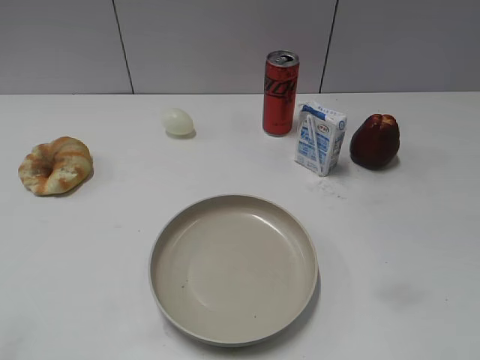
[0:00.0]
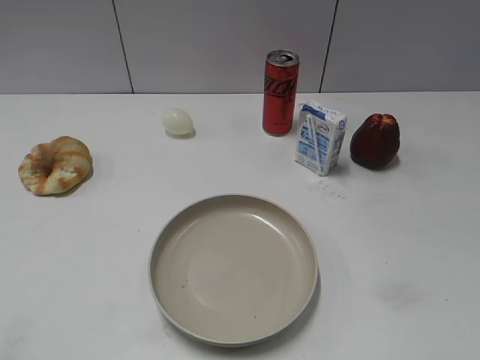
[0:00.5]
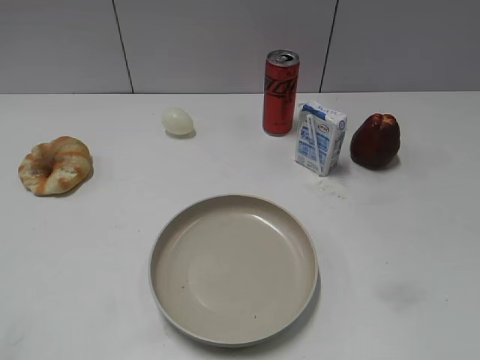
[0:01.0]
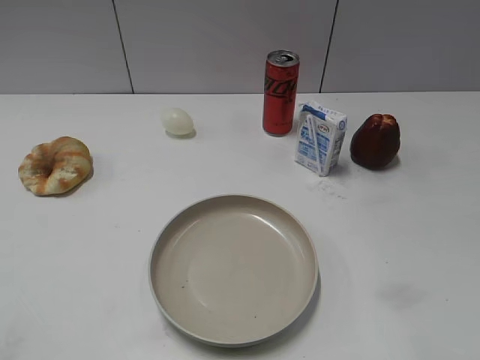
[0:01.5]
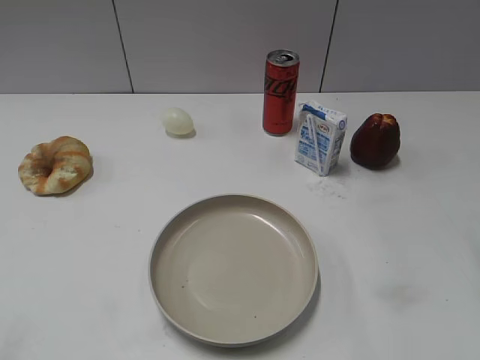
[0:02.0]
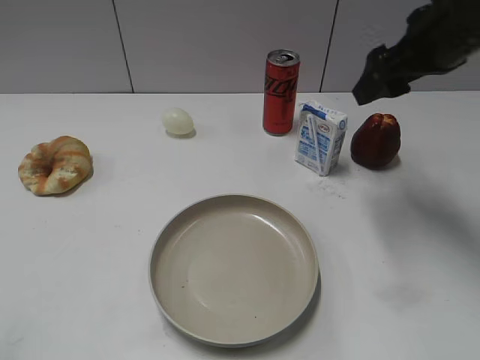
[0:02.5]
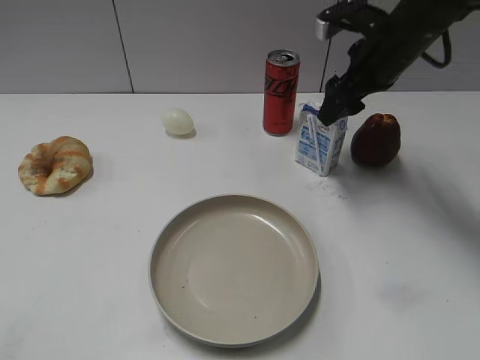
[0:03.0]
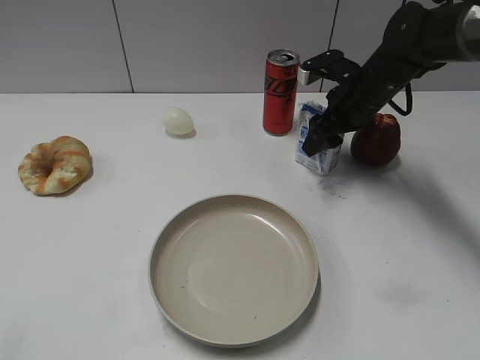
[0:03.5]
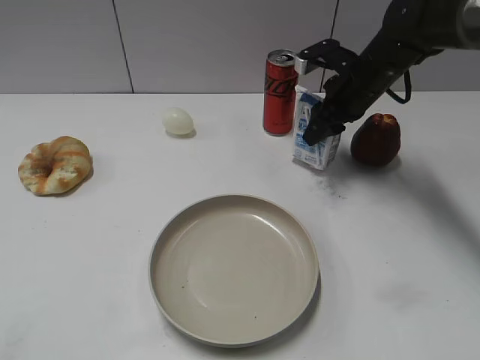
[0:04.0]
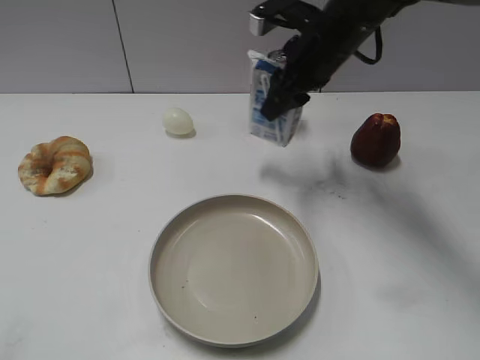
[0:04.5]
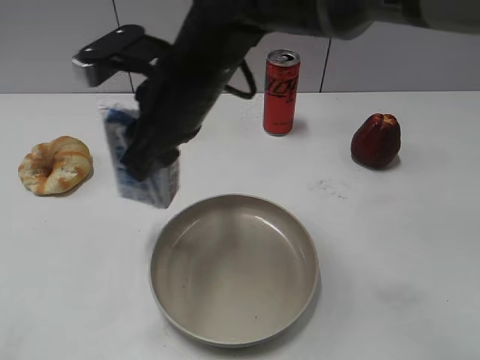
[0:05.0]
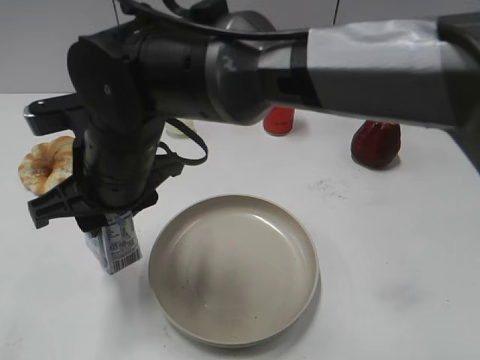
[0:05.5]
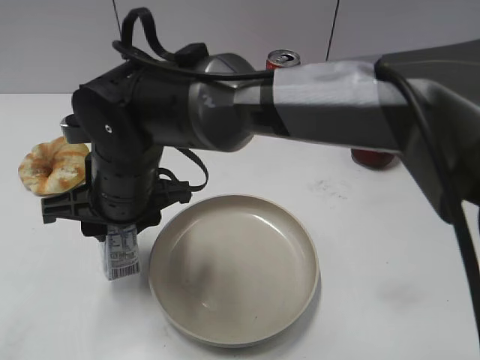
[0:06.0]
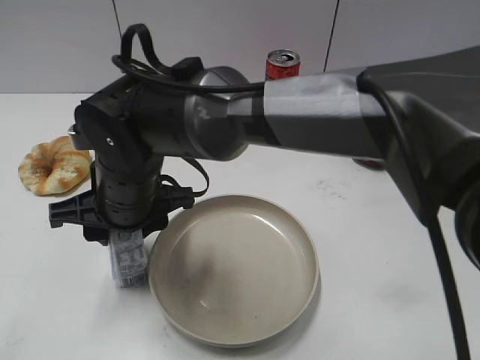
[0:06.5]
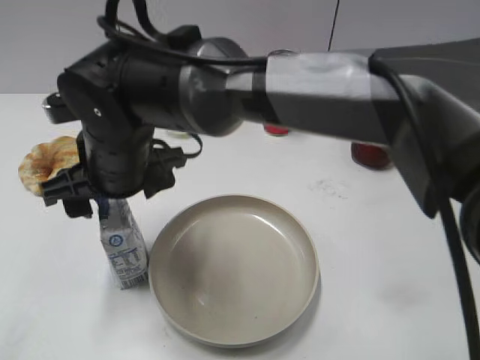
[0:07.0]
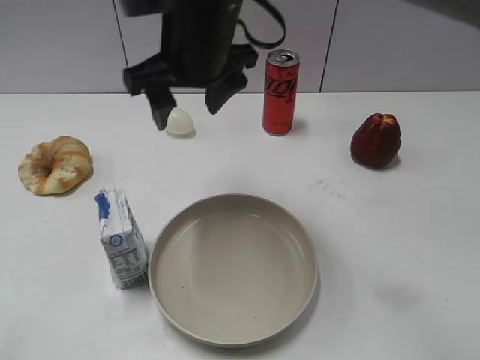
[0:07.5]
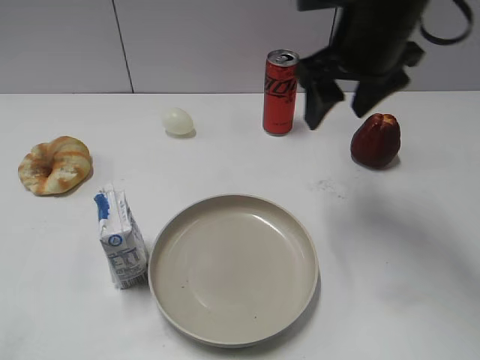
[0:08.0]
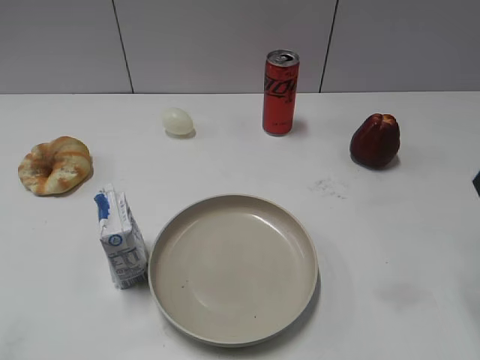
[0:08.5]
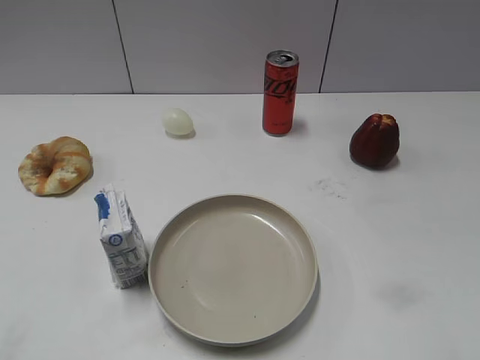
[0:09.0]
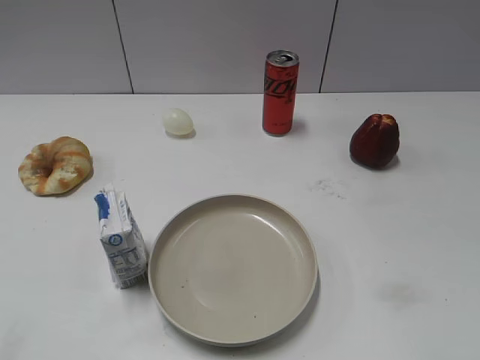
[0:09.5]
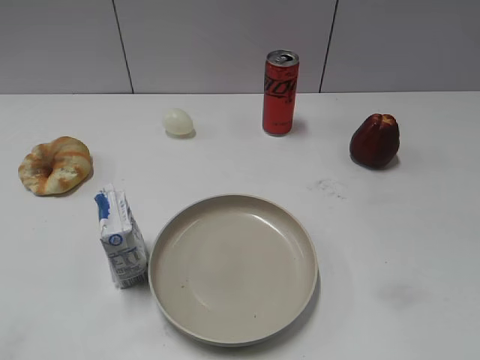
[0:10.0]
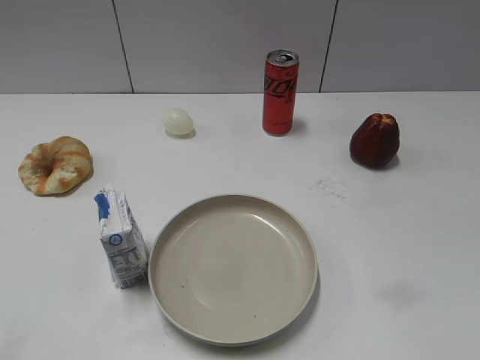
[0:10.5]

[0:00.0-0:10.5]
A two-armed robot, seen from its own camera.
Step, 0:01.0 to 0:03.5: Grasp the milk with right gripper.
Step, 0:04.0 to 0:06.5: Place the milk on the table with right gripper.
0:02.0 to 0:04.0: The right gripper shifts approximately 30 cm forward, downward and to the left, and closes.
0:04.0 to 0:06.5: The right gripper travels to the left and backward by some 35 cm.
0:06.5 to 0:08.5: The right gripper shifts some 40 cm to the right, and opens its fingers.

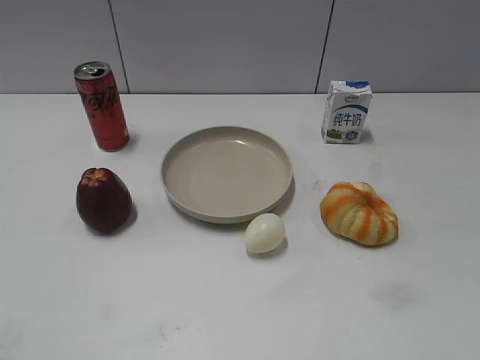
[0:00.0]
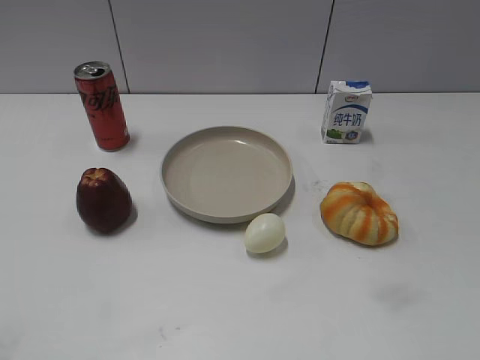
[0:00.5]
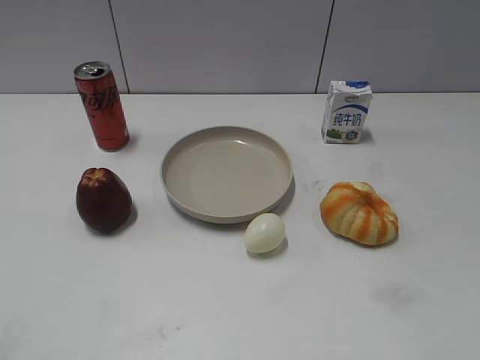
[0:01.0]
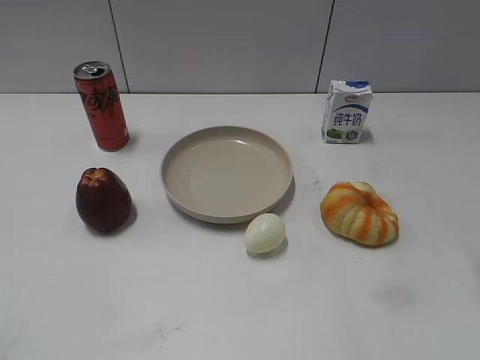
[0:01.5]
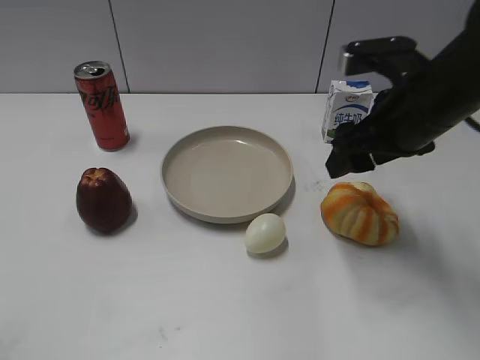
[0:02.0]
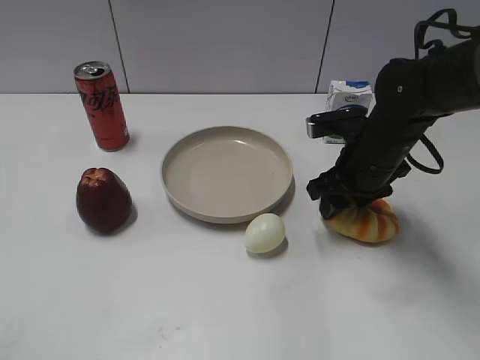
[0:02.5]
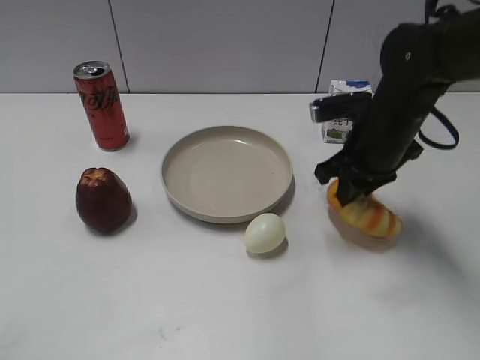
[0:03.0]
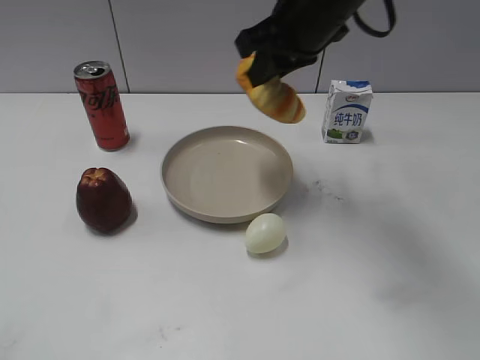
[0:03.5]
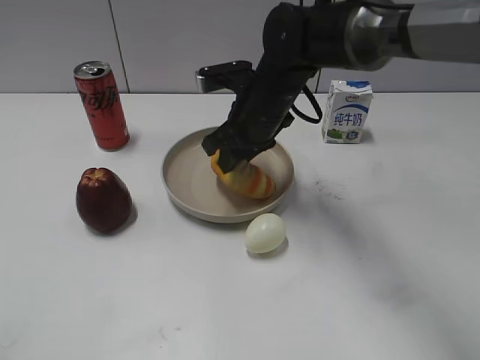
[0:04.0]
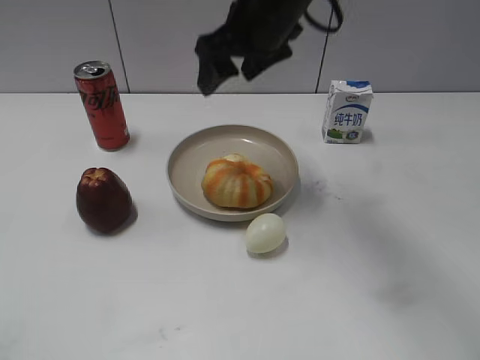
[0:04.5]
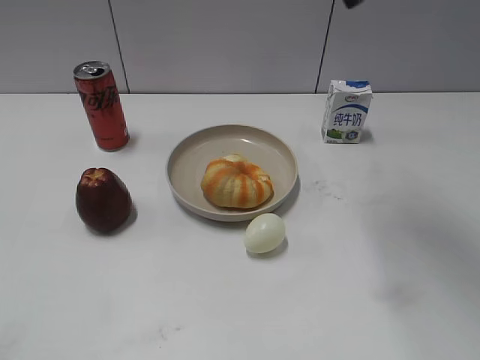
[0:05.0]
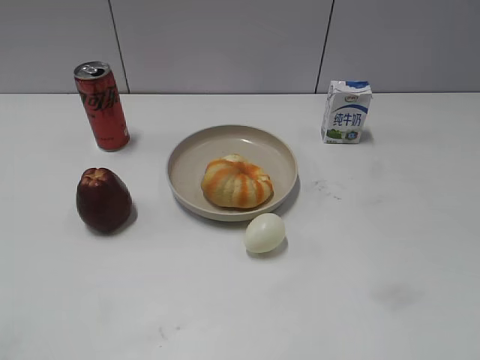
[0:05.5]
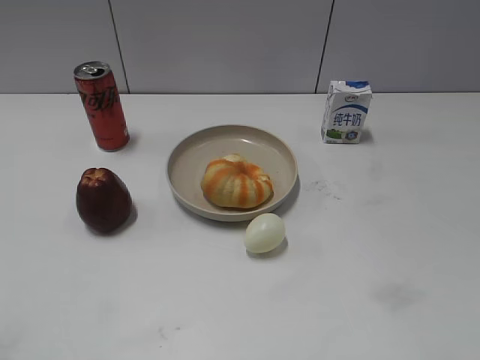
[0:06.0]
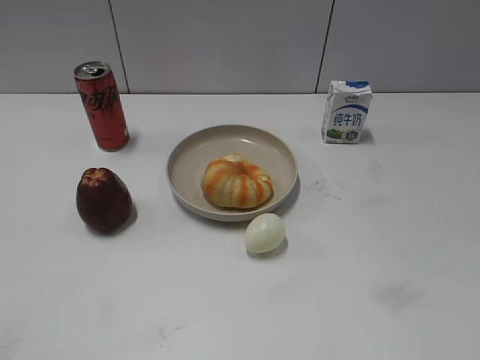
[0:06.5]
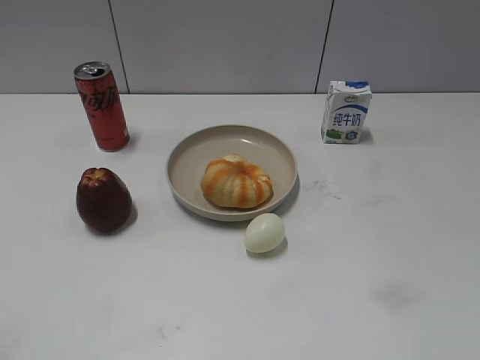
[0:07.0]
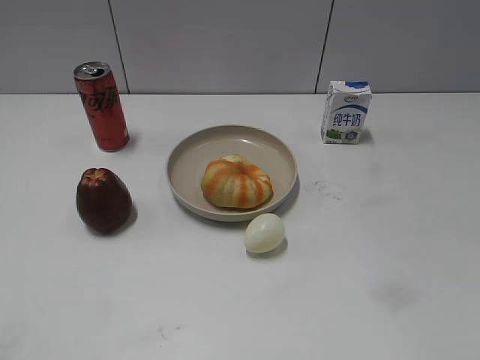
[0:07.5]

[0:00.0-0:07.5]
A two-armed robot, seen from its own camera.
Step, 0:01.0 to 0:02.5: Grasp the round bread with right gripper.
Step, 0:03.0 to 0:04.0: Place the round bread on the plate with right gripper.
0:02.0 to 0:04.0: The right gripper goes up and down, approximately 15 cm each way, reversing 2 times, and closes.
0:04.0 to 0:05.5: The right gripper moves backward, to the right and upward, roughly 40 cm, and opens up.

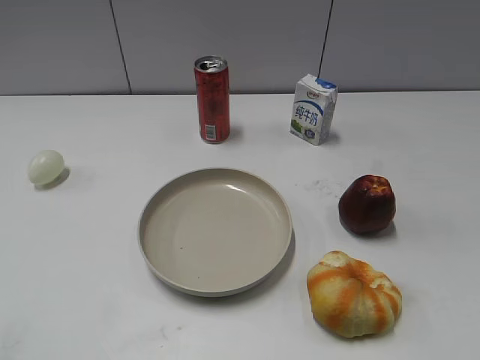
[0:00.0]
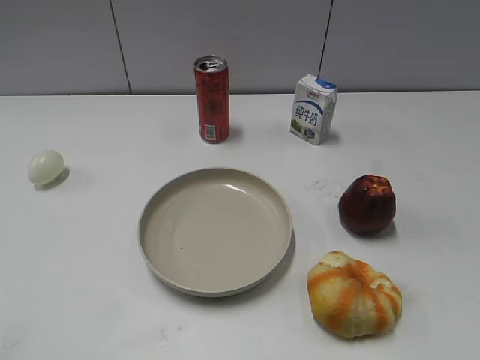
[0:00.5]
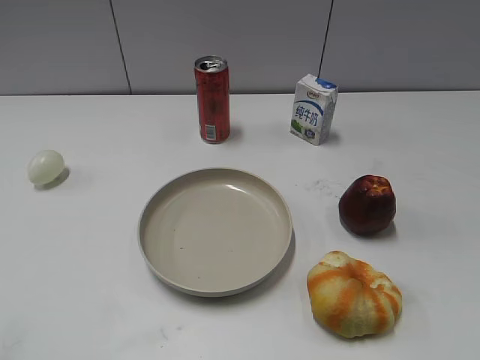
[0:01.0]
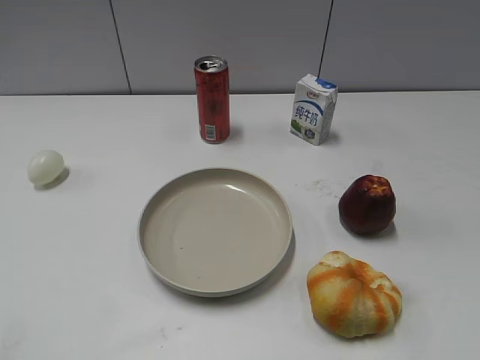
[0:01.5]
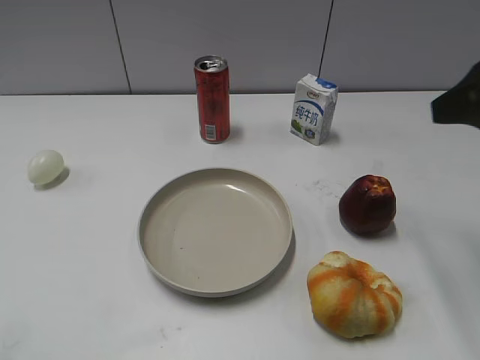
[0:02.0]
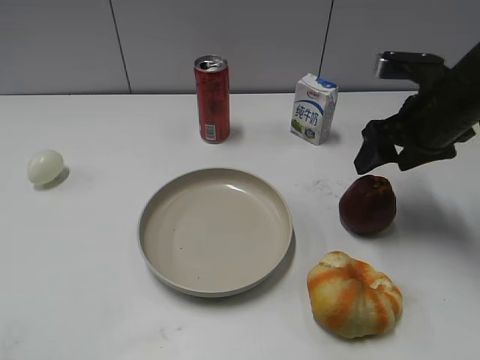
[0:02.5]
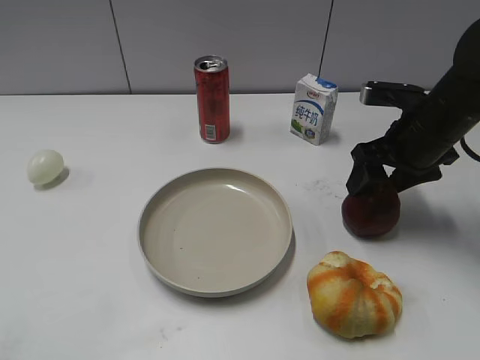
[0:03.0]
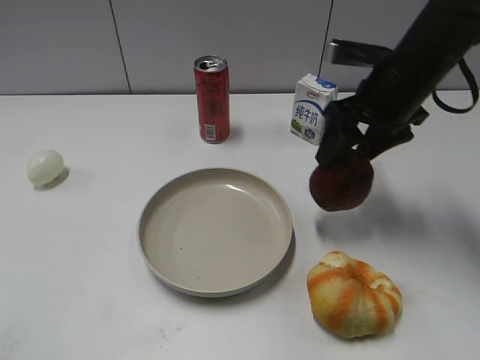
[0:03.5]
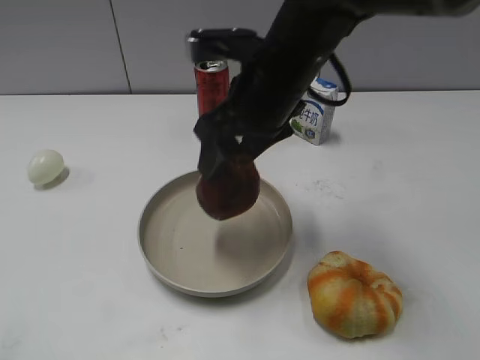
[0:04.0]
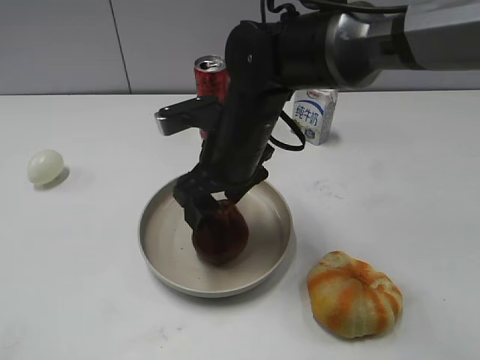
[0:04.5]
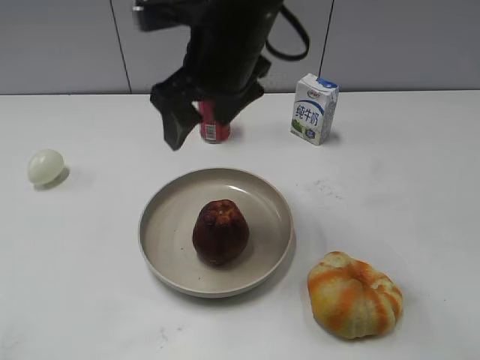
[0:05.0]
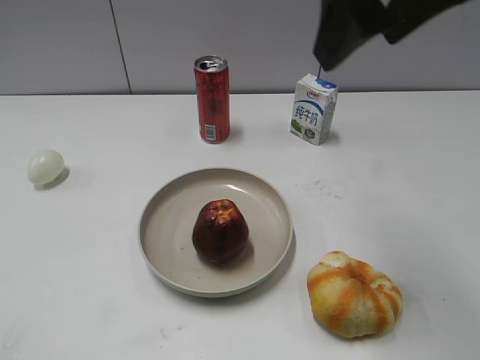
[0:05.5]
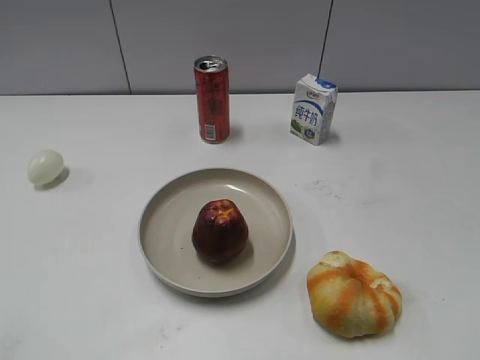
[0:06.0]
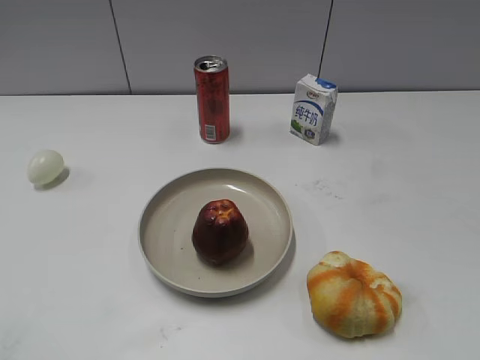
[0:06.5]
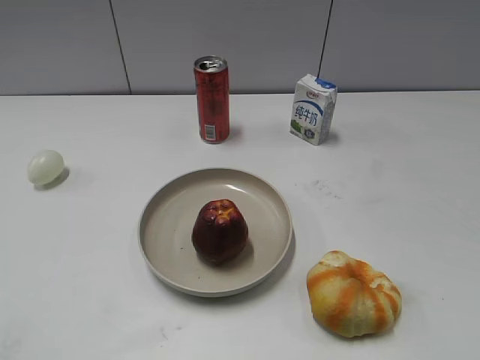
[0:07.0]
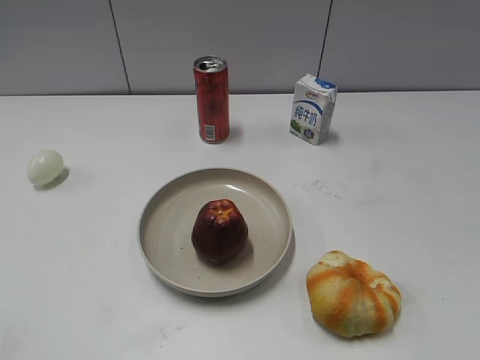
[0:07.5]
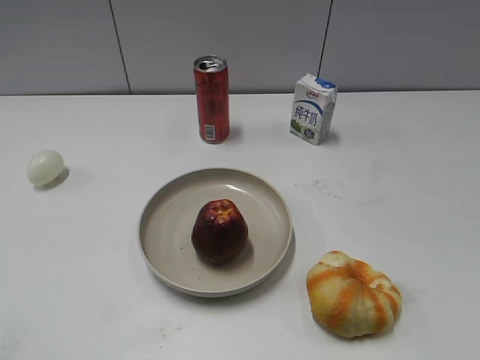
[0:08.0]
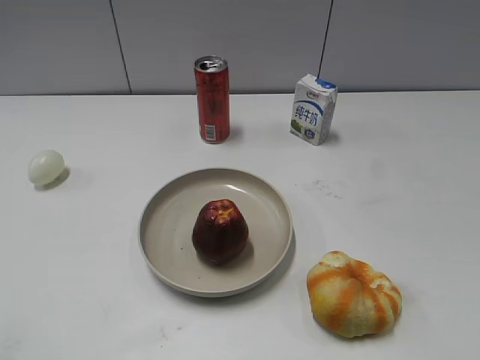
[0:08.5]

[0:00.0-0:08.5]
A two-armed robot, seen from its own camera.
Step, 0:01.5 to 0:03.0: Grasp the apple with right gripper.
Step, 0:03.5 to 0:04.5: Place the apple on the plate with right gripper.
0:02.0 to 0:04.0: The right gripper moves to the left and forward, approximately 25 cm, and closes.
0:04.0 to 0:06.5: The right gripper moves backward and to the right, approximately 35 cm, and opens, then closes once more.
